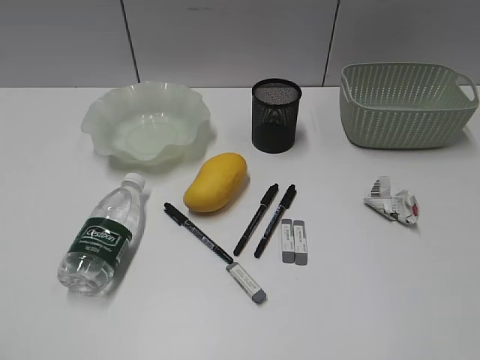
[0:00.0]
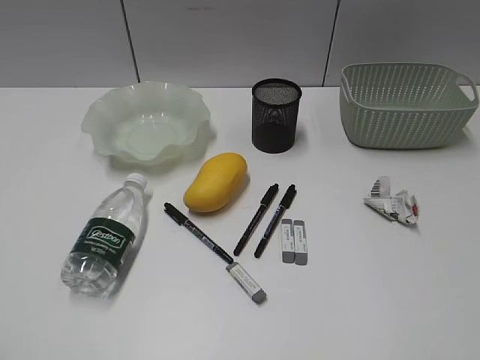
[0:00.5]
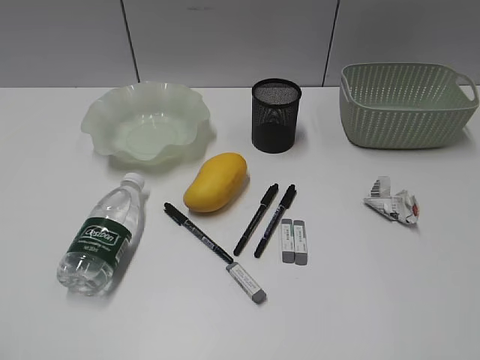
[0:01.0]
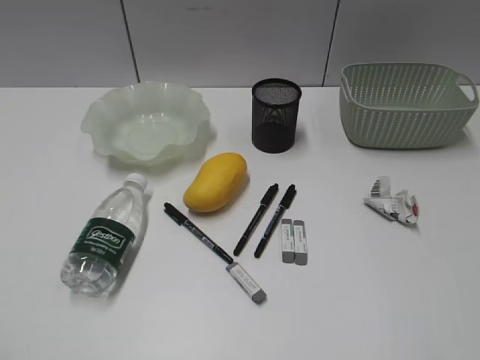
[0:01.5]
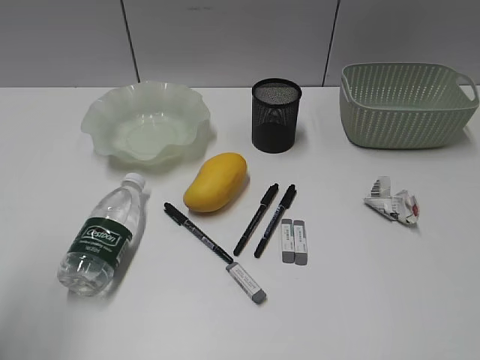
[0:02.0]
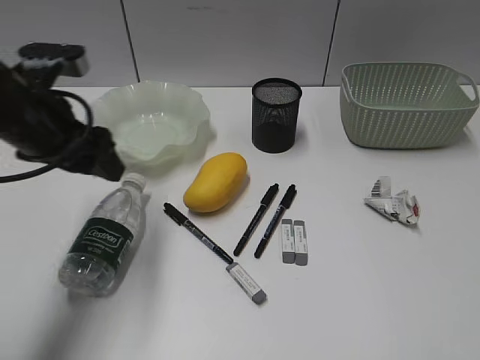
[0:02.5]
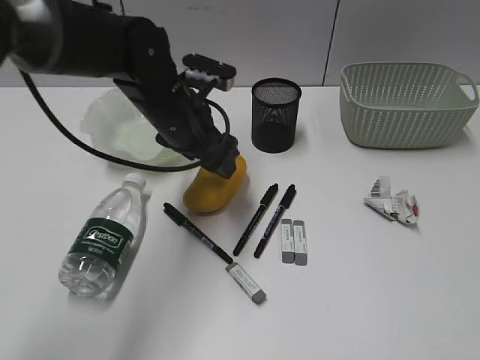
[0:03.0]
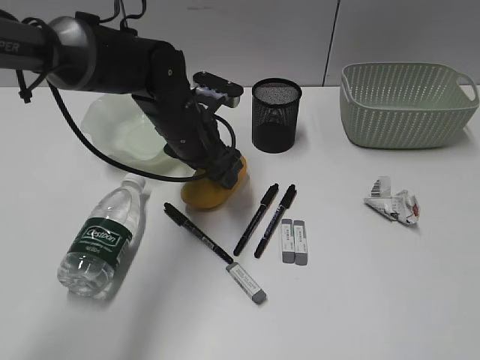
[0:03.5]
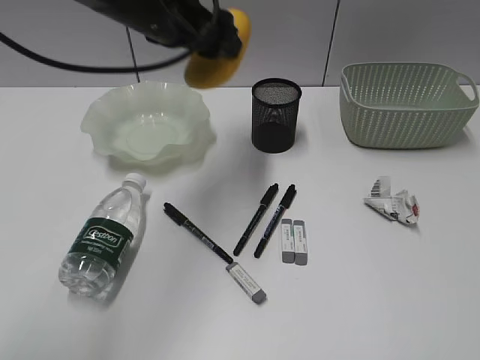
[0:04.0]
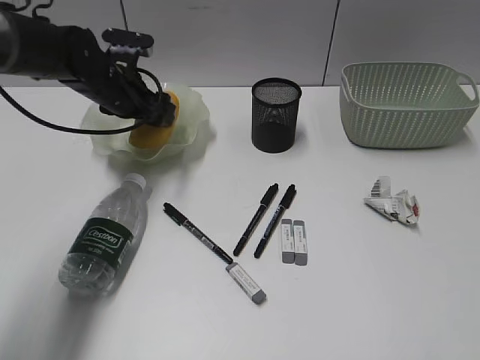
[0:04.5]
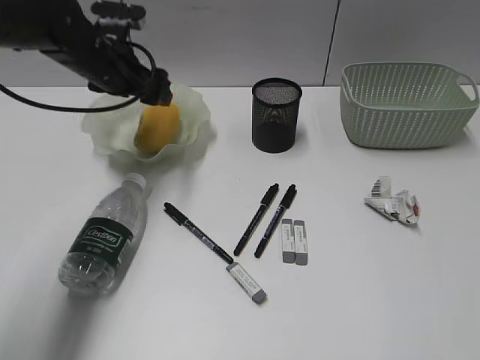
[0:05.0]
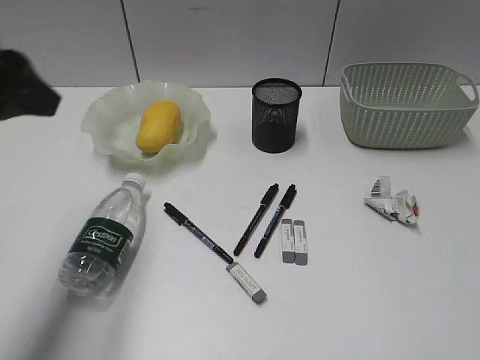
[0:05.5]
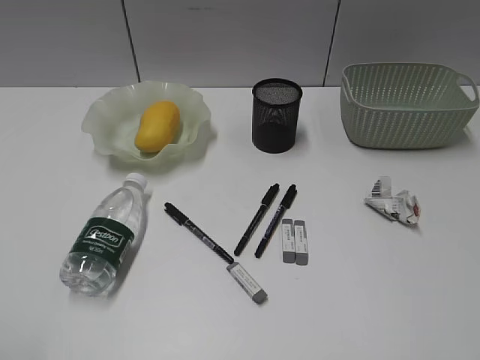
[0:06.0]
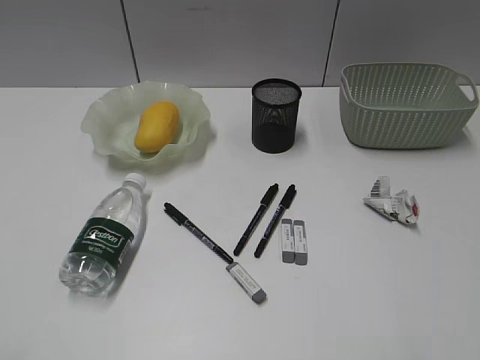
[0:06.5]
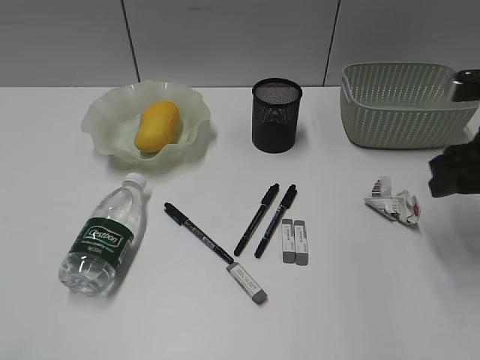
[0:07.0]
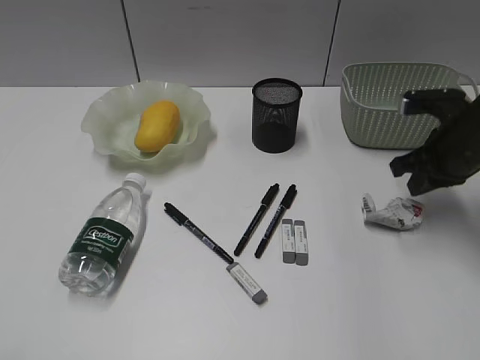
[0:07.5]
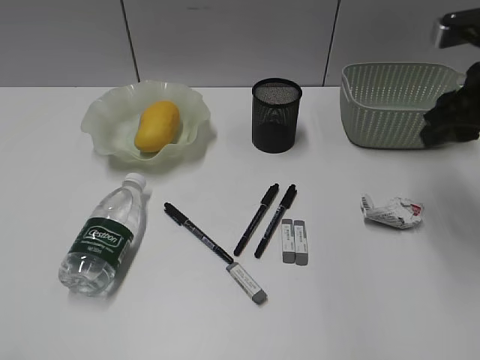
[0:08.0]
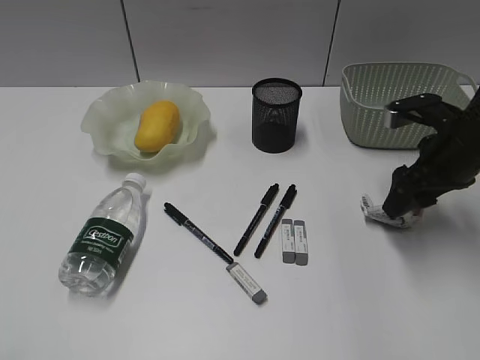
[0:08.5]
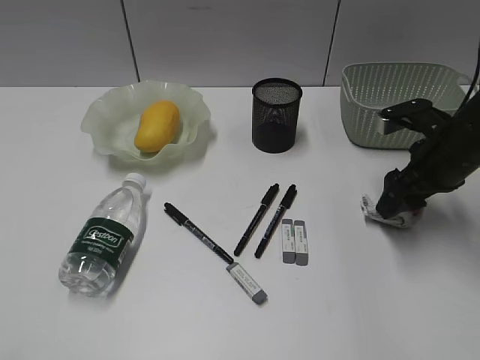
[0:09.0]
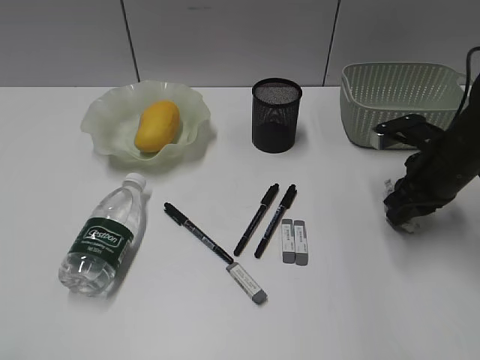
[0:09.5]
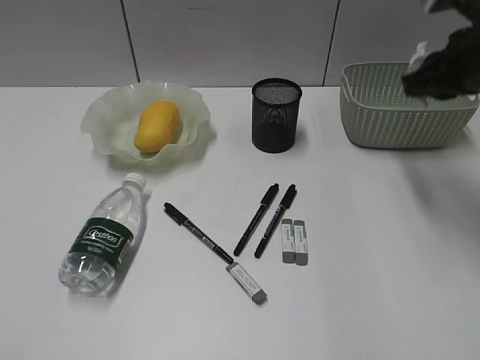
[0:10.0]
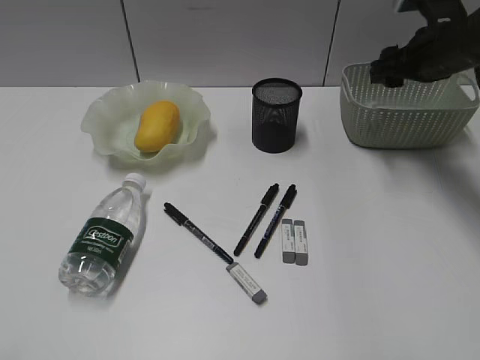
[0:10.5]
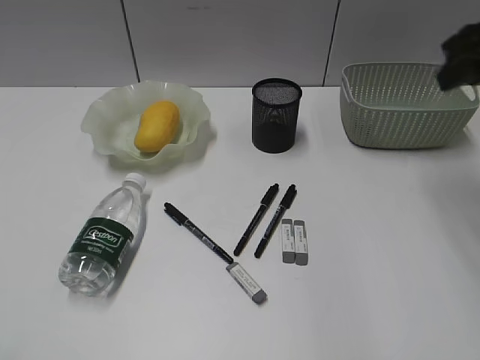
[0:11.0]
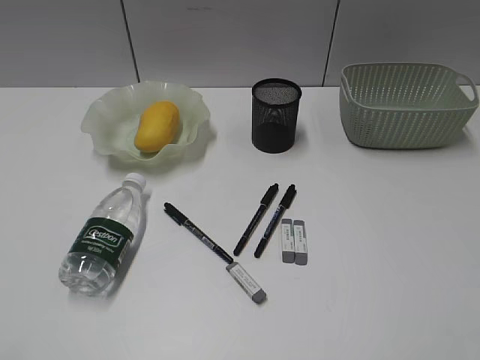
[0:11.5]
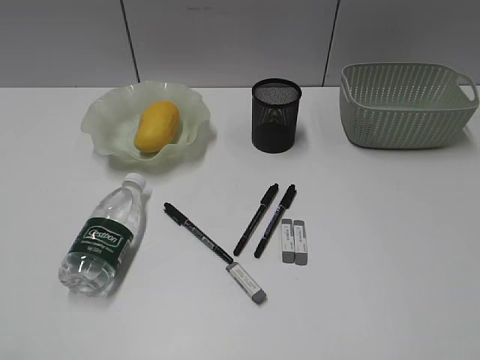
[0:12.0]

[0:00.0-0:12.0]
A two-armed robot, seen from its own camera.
Step, 0:02.0 to 0:03.5: Grasp the mango with left gripper.
Step, 0:04.0 to 0:05.0: Place the mango in the plate with left gripper.
Step, 0:05.5 to 0:09.5: Grasp the waste paper with right gripper.
Step, 0:10.0 to 0:10.5: Place the waste paper in the basket with right gripper.
0:02.0 to 0:04.0: The left gripper goes some 35 cm forward and to the right.
0:04.0 to 0:06.0: The left gripper is displaced backward and to the left by roughly 40 cm.
0:06.0 to 0:08.0: The right gripper is displaced forward by roughly 35 cm, and closes, then opens again.
0:08.0 to 0:10.0: The right gripper moves roughly 10 cm downward and comes back, and closes.
0:10.0 to 0:12.0: The right gripper is displaced backward by approximately 35 cm, and opens up.

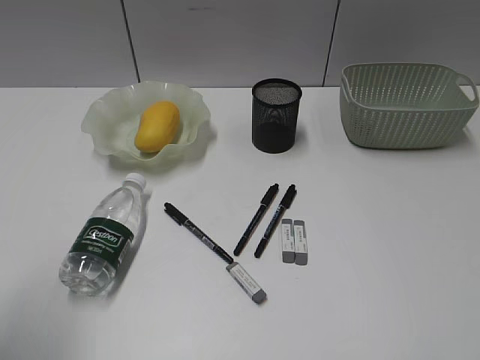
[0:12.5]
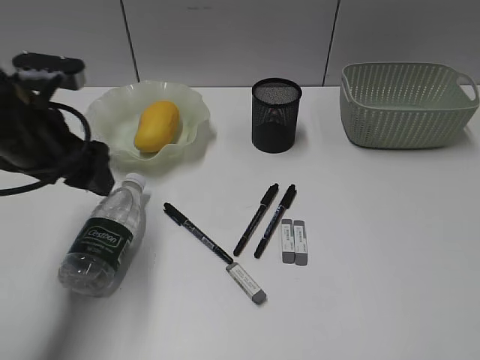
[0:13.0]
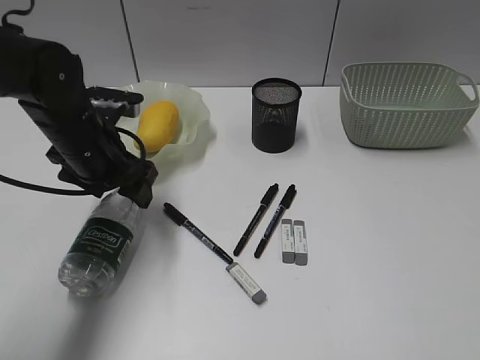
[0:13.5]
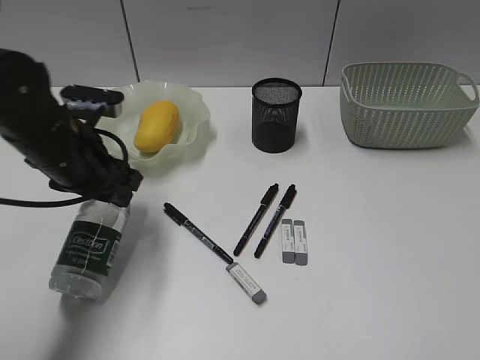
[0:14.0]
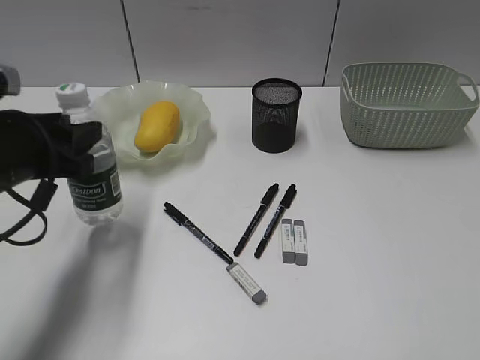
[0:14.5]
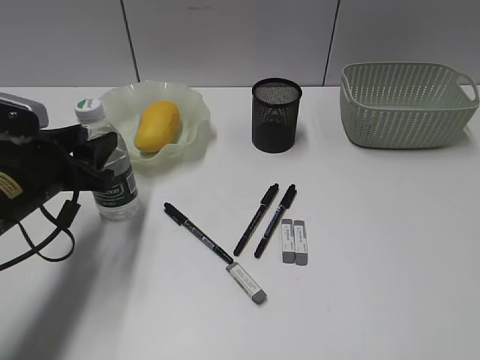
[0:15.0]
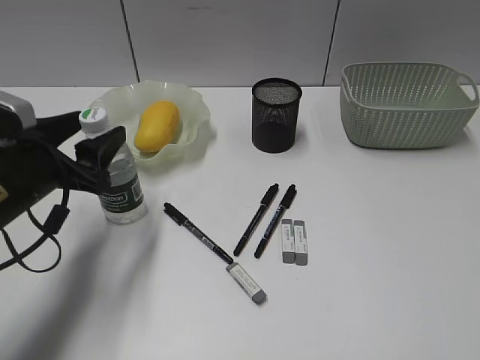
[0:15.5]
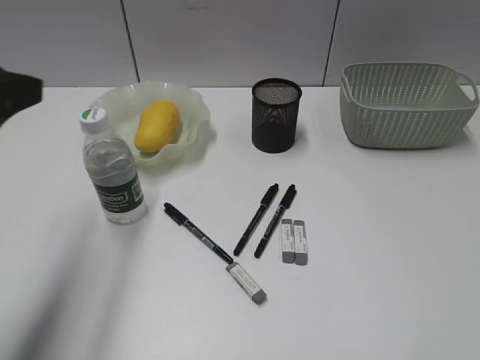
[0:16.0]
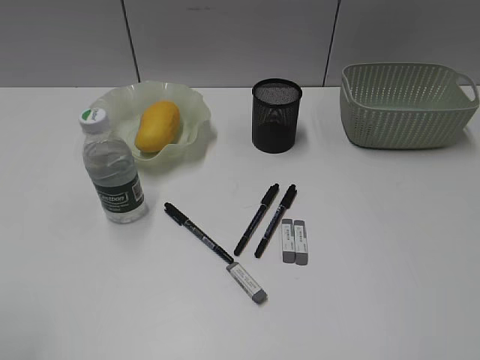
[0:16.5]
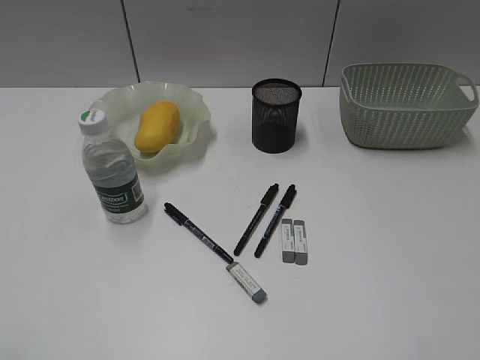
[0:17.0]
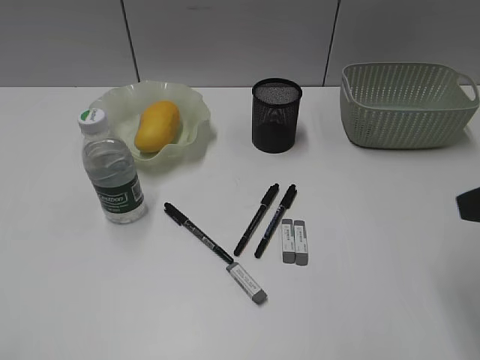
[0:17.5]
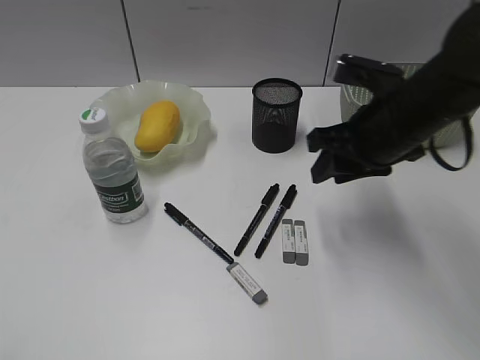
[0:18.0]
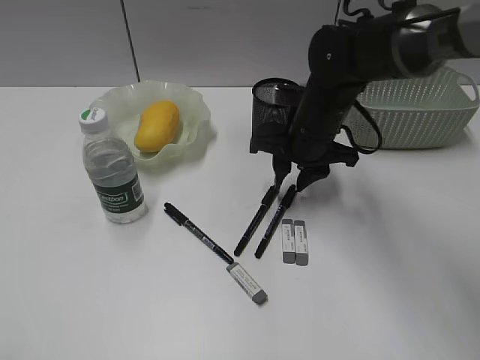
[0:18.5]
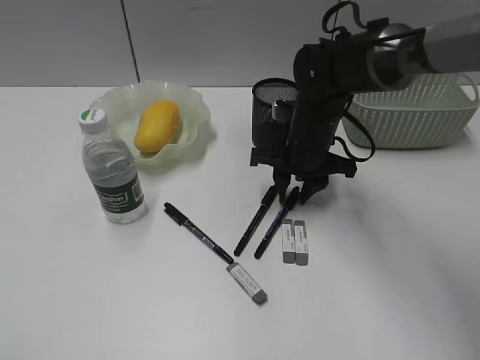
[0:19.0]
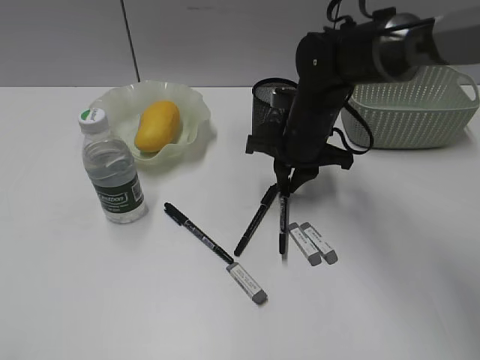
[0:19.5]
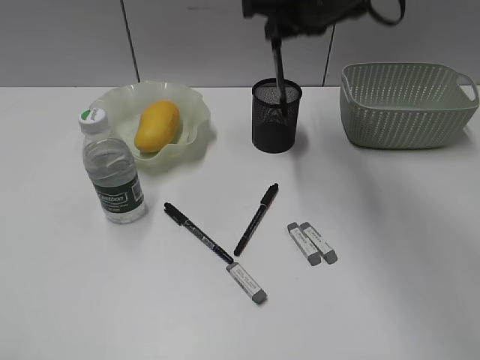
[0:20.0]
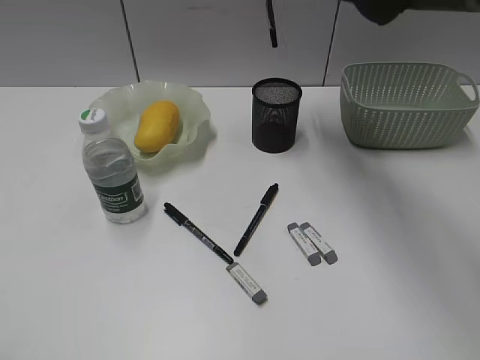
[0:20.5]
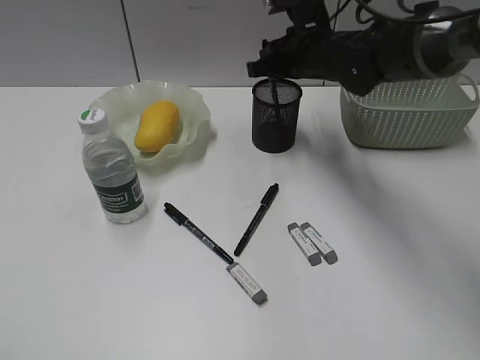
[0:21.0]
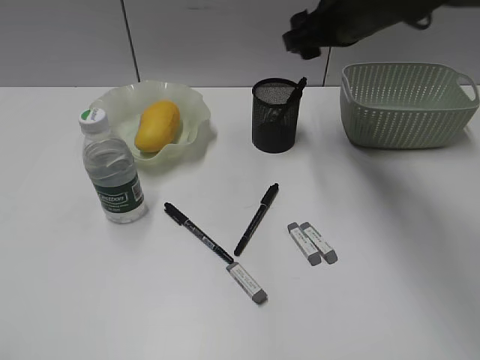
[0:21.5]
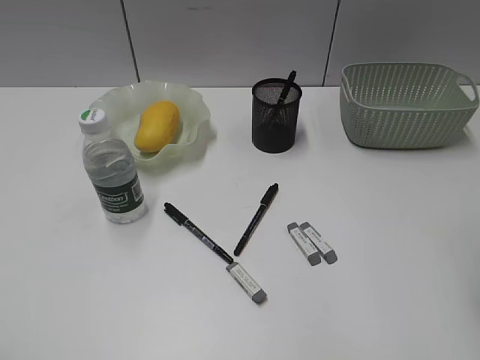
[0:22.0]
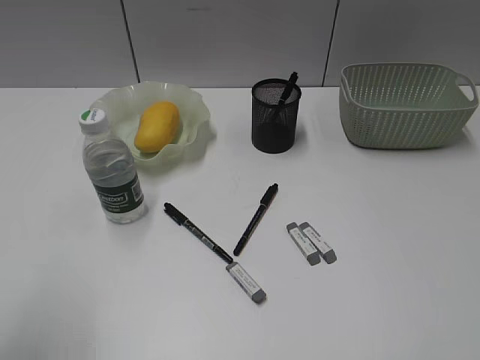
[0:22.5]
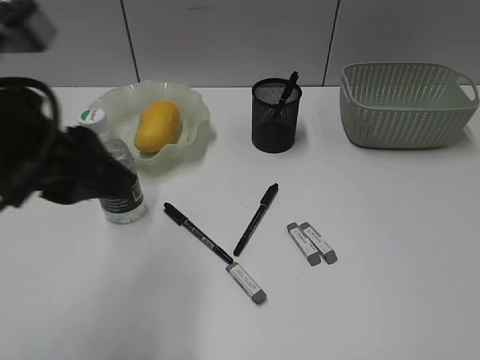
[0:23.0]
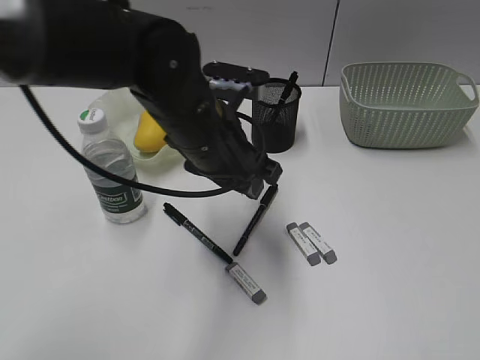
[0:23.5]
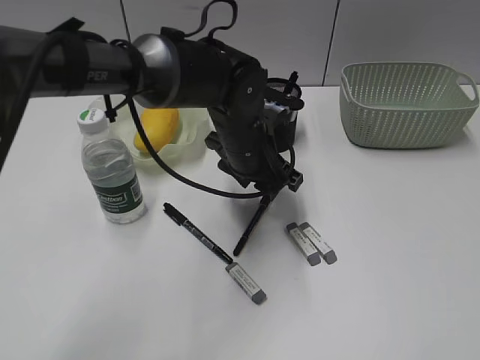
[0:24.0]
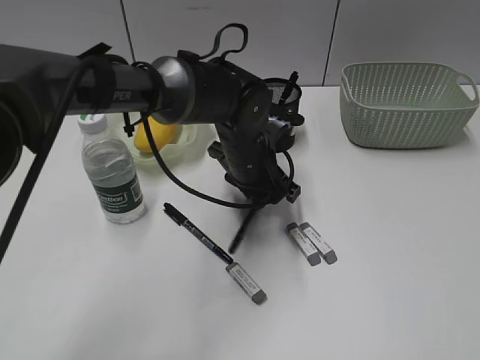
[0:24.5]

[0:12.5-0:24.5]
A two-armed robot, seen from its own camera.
Step, 0:14.0 to 0:15.5: Stand the bottle with left gripper.
Step, 0:16.0 to 0:19.0: Grasp the black pen with right gripper.
Step, 0:19.5 to 0:21.0: Place the black pen in pen holder with right gripper.
0:12.5 to 0:14.5: The left gripper is displaced forward, downward and to the right by approximately 20 cm, and opens, then closes again.
0:14.5 to 0:16.5: The left gripper heads backward, upward and to the left, covering about 25 cm.
0:16.5 to 0:18.5: The left gripper changes place by some 5 cm, while the right gripper heads forward and to the left, covering roughly 40 cm.
0:18.5 to 0:20.5: The right gripper goes about 15 cm upward and forward.
0:20.5 to 0:22.5: The left gripper travels forward by approximately 10 cm. Meanwhile the right gripper is displaced backward and to the right by some 50 cm, and opens its fingers.
0:22.5 to 0:24.5: The left gripper heads to the right, forward and downward, covering roughly 50 cm, and closes.

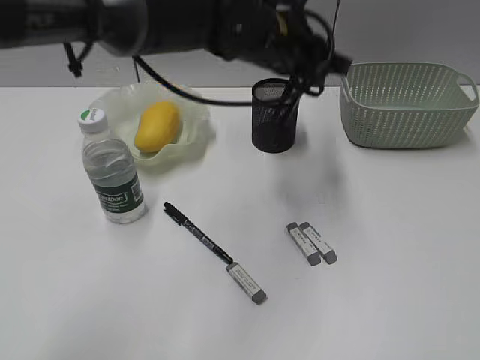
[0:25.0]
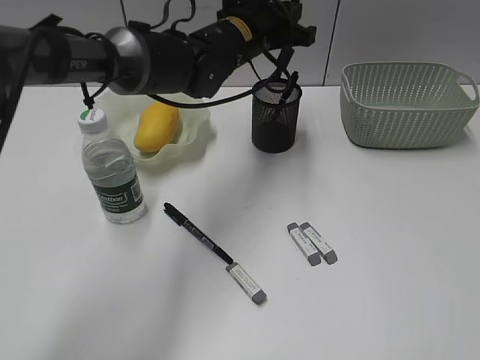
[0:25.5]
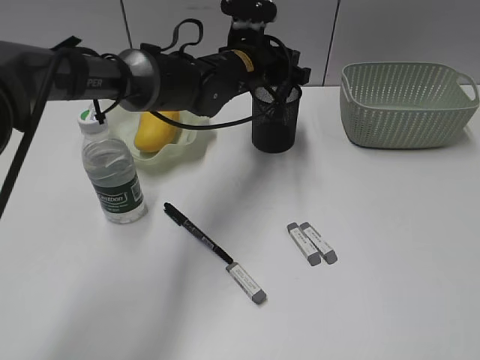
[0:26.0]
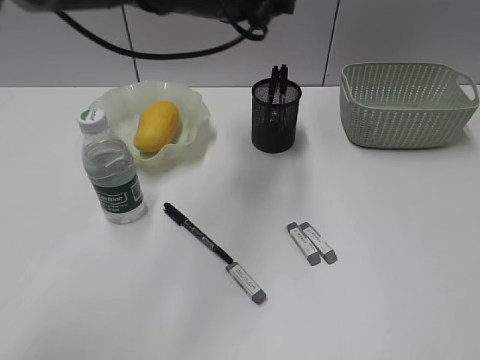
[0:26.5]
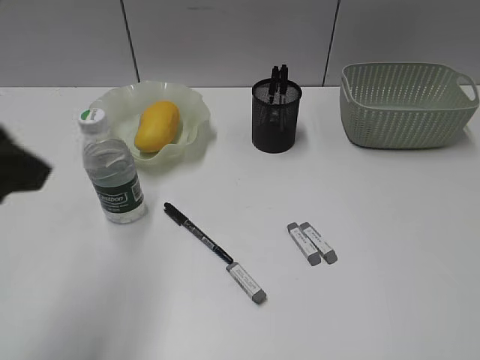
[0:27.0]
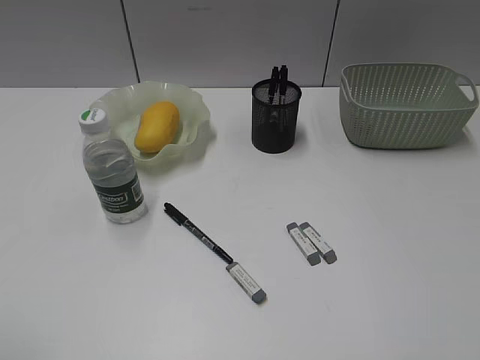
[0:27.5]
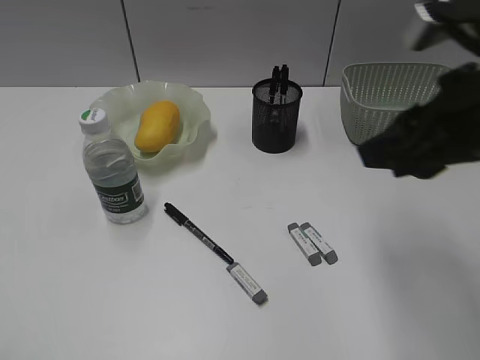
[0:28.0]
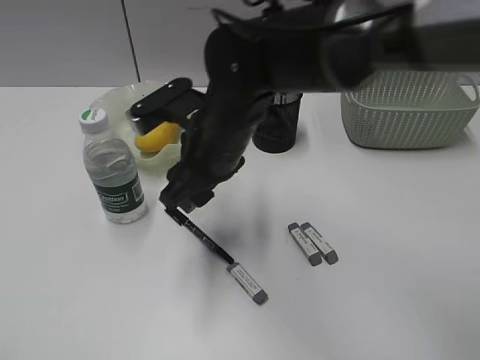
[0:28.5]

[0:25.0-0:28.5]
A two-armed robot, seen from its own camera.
Step, 0:25.0 to 0:26.0: Place the black pen in pen holder with left gripper.
0:25.0 to 0:27.0: The left gripper heads to the left and backward, covering roughly 35 cm.
0:27.0 to 0:28.5: The right gripper travels to the left and forward by approximately 50 cm; the left gripper goes some 20 cm backward and to the left.
